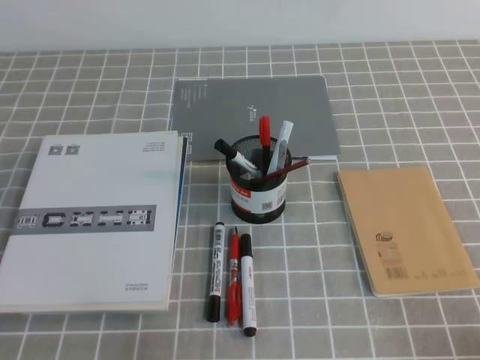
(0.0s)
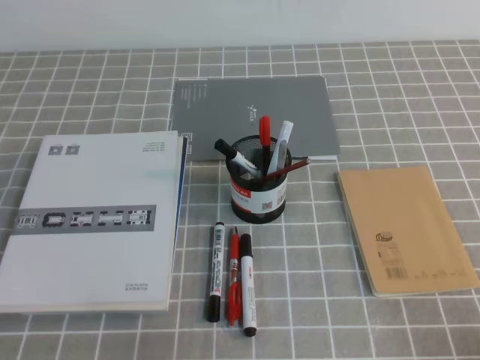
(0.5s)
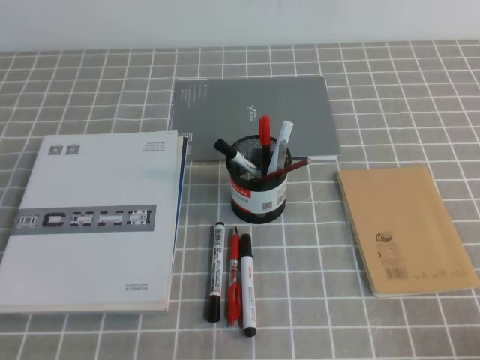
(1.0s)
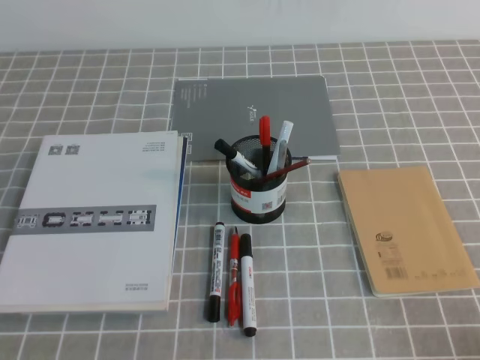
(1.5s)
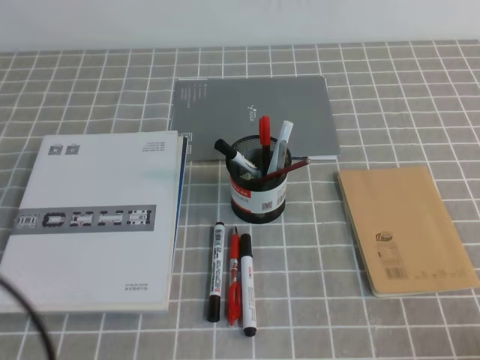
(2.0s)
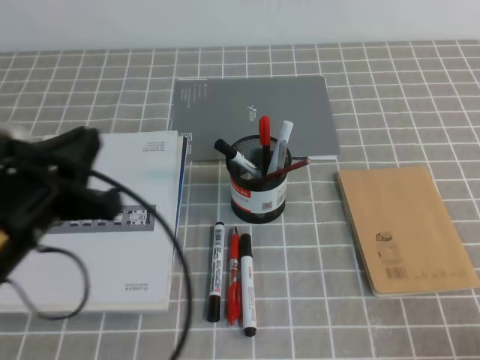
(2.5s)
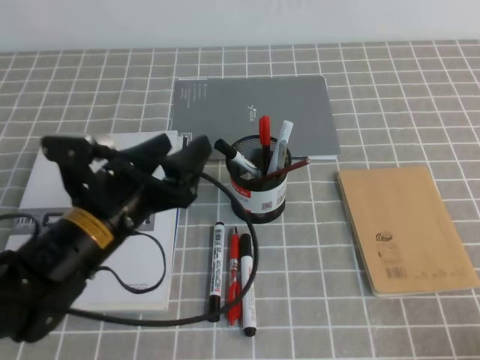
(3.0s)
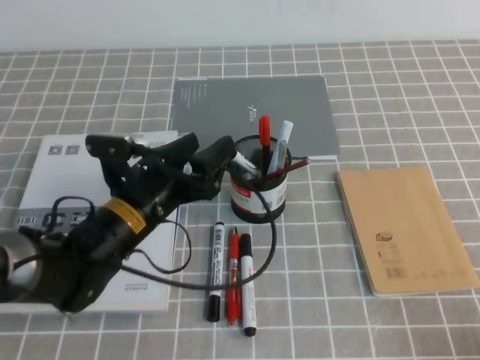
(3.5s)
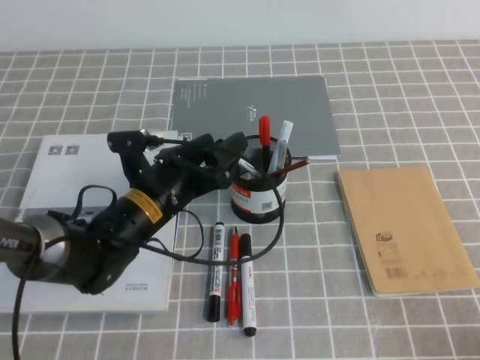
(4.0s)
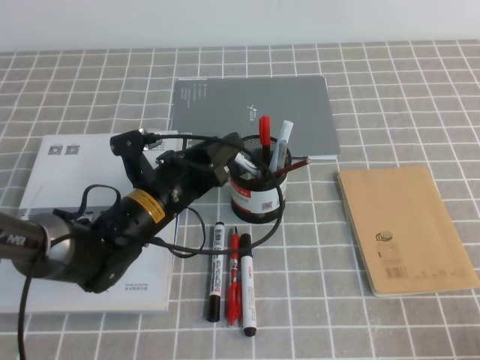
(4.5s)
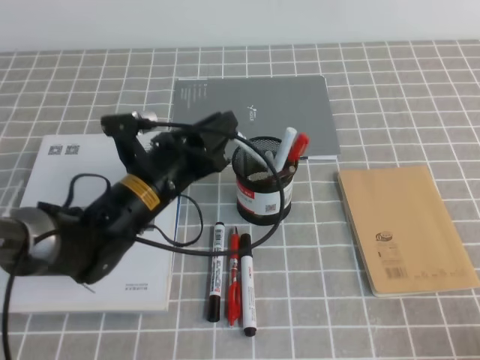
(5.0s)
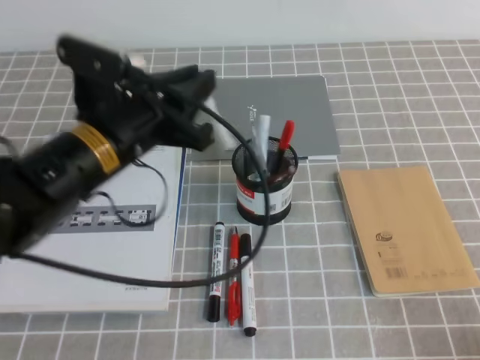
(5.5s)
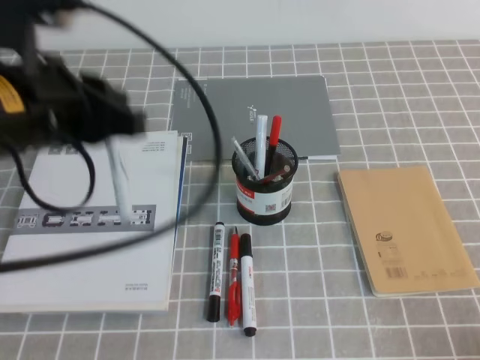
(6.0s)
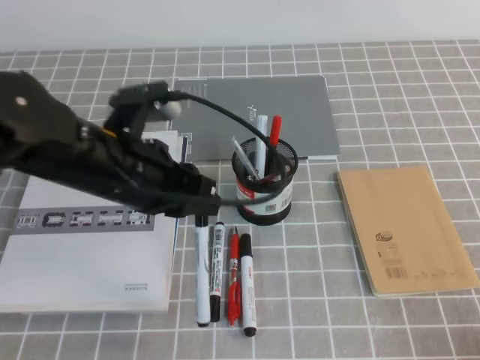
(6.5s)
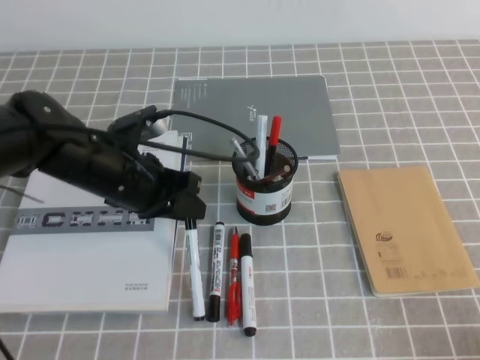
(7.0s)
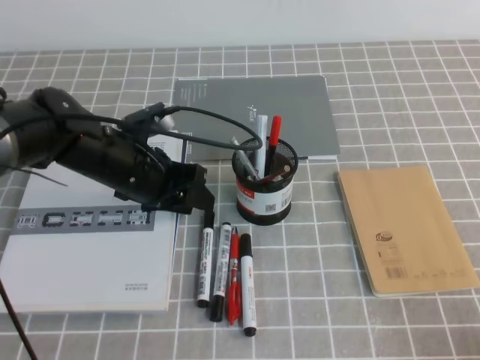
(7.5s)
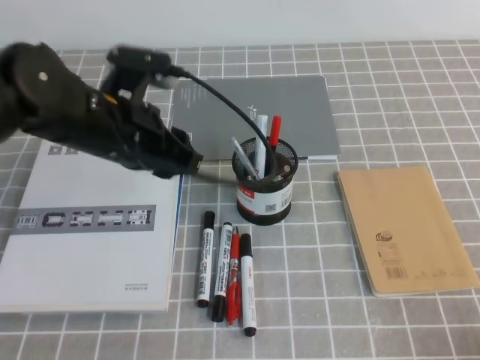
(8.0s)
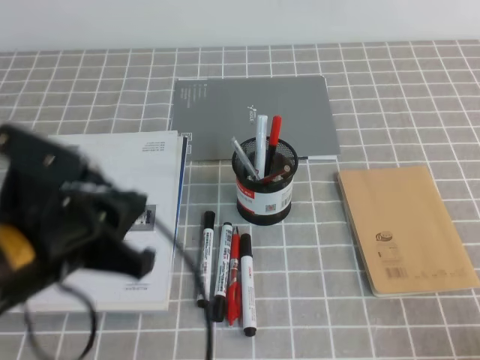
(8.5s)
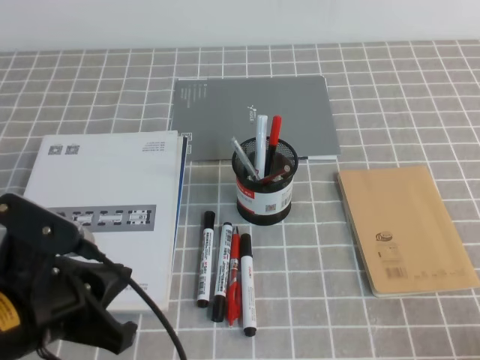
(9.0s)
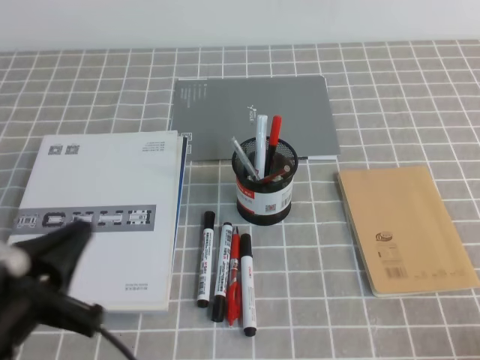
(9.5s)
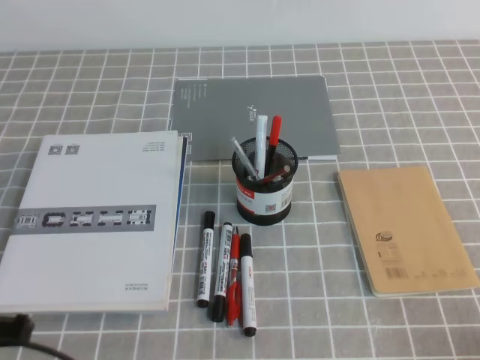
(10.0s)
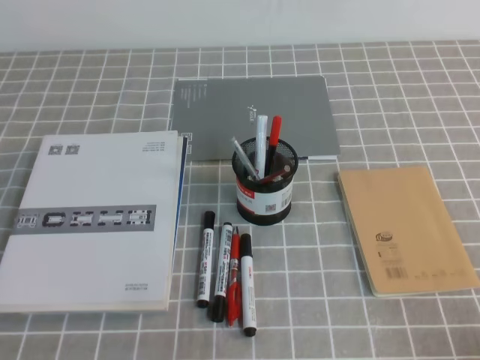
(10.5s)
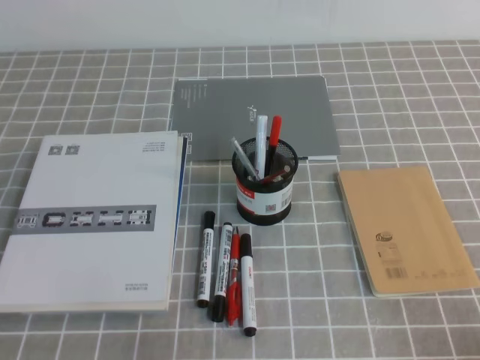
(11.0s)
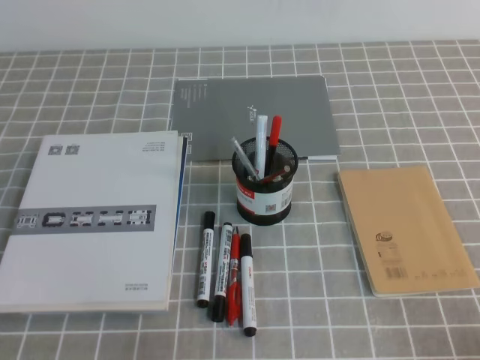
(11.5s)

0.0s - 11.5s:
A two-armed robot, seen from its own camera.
Step, 0.0s - 11.5s: Pick up the pen from the pen holder.
0.0s - 2.0s: The left gripper is displaced upward by about 15 cm.
2.0s - 4.0s: The left gripper is displaced forward, to the right and downward by roughly 30 cm, and opens its fingers.
4.0s - 6.0s: The left gripper goes some 20 cm upward and backward, and closes.
6.0s - 7.5s: The left gripper travels downward and forward by about 20 cm.
7.5s - 9.5s: The left gripper is displaced backward by roughly 20 cm, and closes its fingers.
9.5s - 11.5s: The left gripper moves backward, downward and to the left, approximately 10 cm.

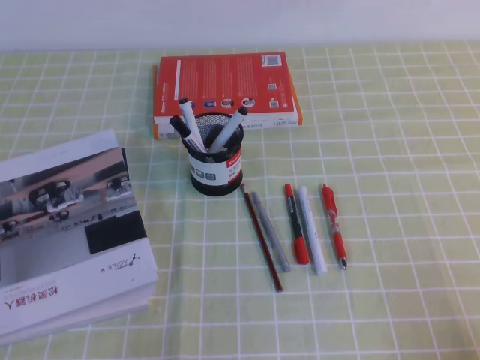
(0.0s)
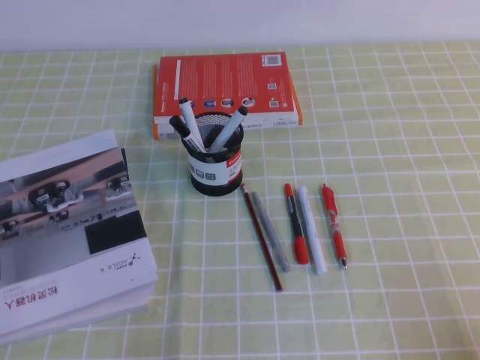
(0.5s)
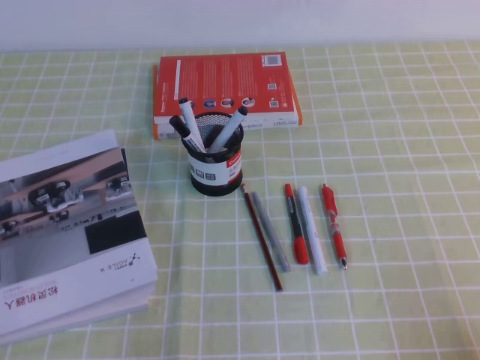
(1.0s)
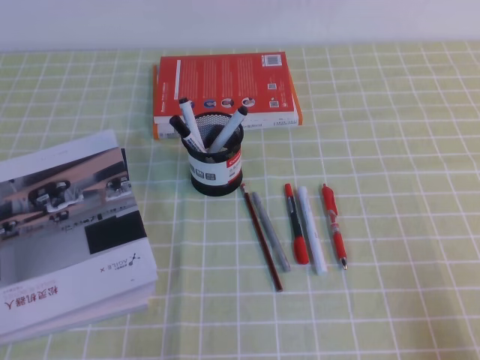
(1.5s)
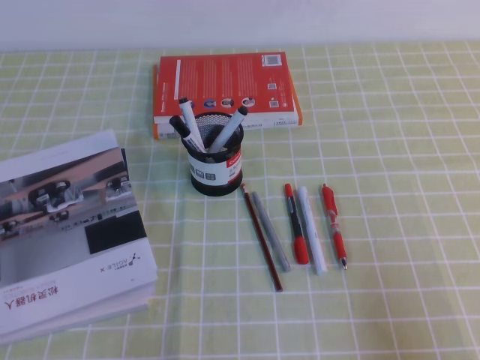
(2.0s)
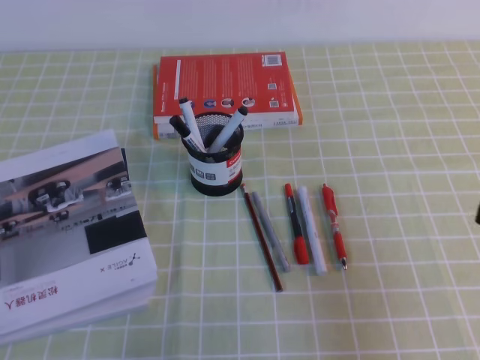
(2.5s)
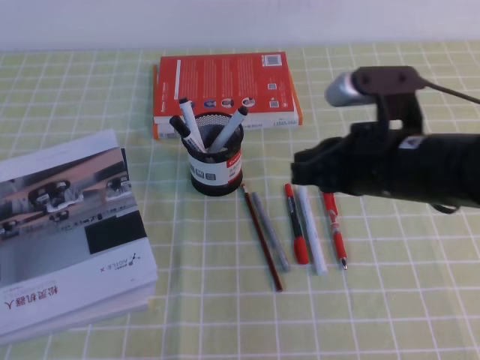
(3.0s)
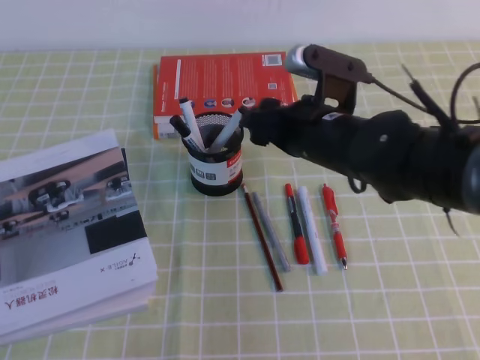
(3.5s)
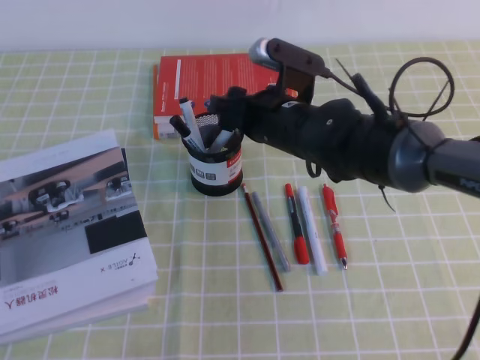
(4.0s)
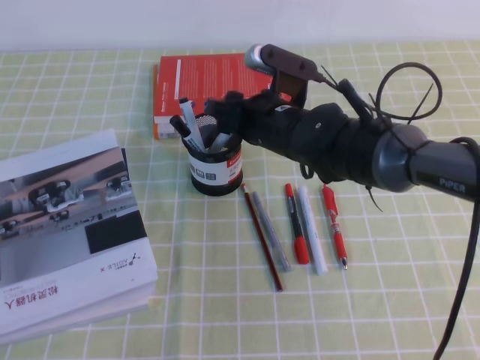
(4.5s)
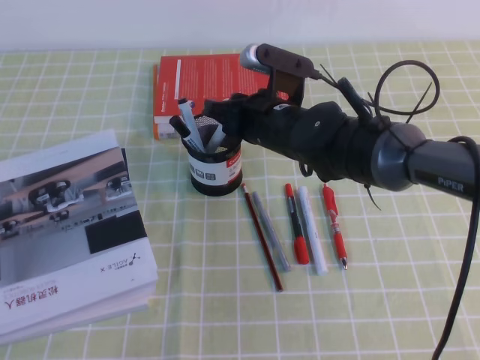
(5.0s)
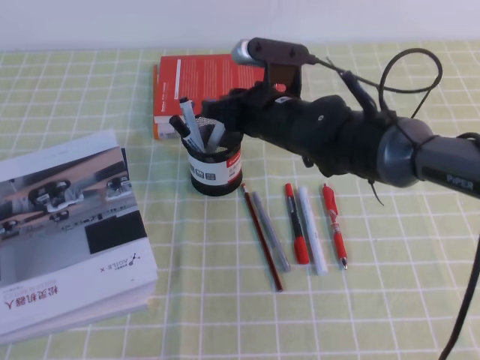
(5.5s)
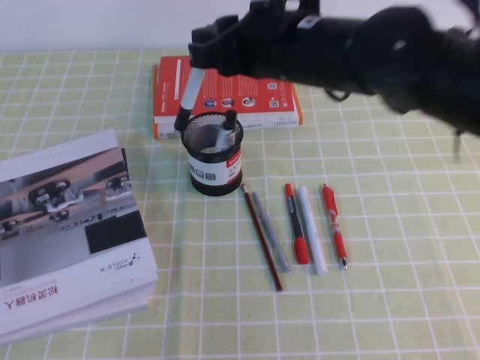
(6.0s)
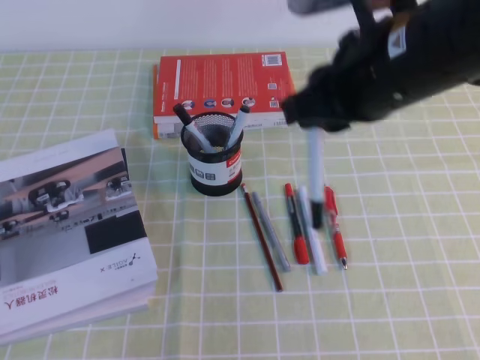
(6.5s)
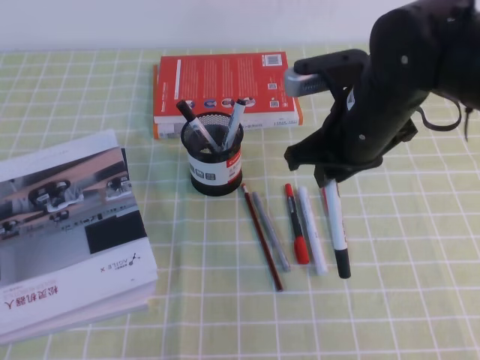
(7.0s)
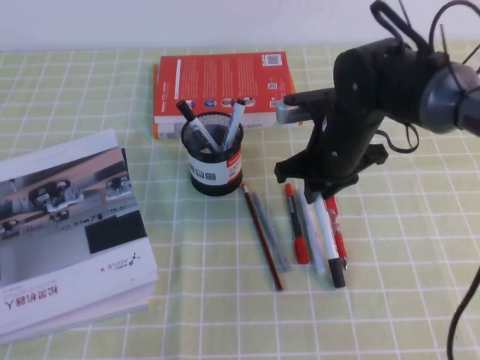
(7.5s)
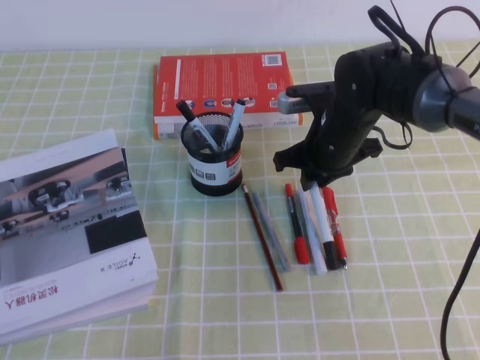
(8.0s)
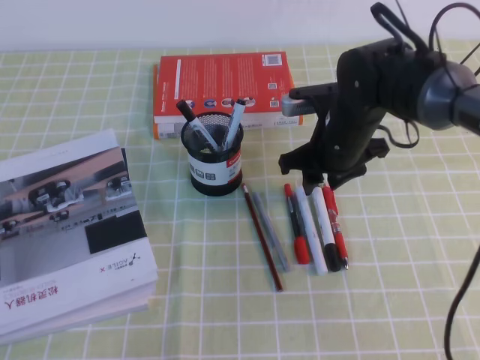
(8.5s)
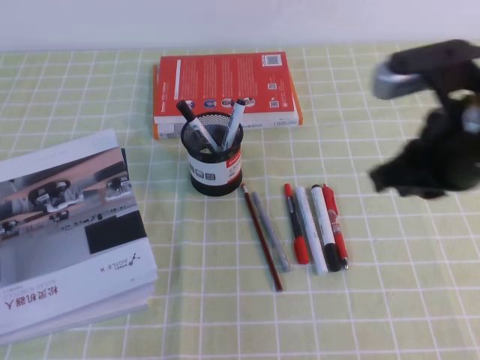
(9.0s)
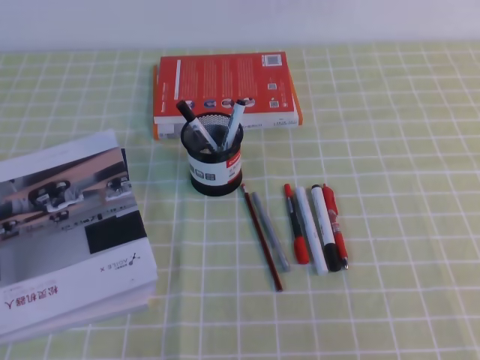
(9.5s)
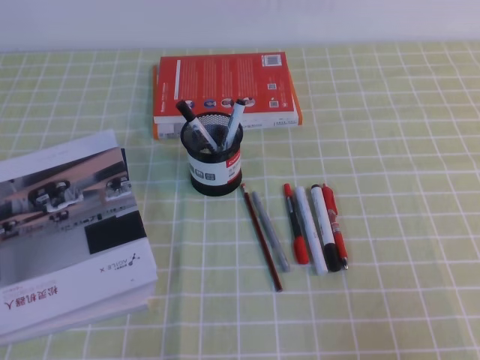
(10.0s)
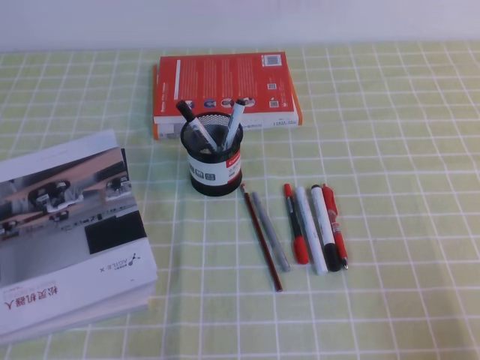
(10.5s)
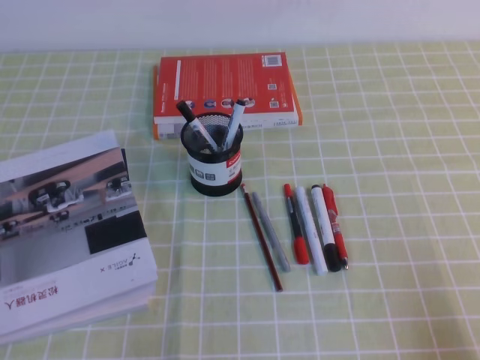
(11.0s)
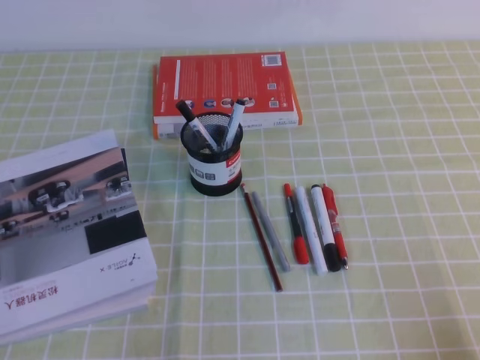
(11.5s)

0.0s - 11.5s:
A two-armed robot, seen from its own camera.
Step, 0.0s - 11.5s: Pick up the pen from the pen holder.
0.0s - 2.0s: The right gripper heads upward, covering approximately 5 cm.
2.0s - 4.0s: The right gripper is displaced forward and to the left by approximately 40 cm, and opens up.
4.0s - 6.0s: The right gripper heads upward, covering roughly 10 cm, and closes up.
6.0s - 7.5s: The right gripper is displaced downward and to the right by roughly 15 cm.
7.5s - 9.5s: The right gripper shifts some 35 cm backward, to the right and upward.
9.5s - 11.5s: The right gripper is displaced downward by some 15 cm.

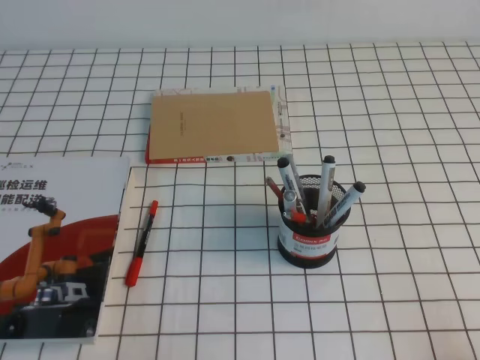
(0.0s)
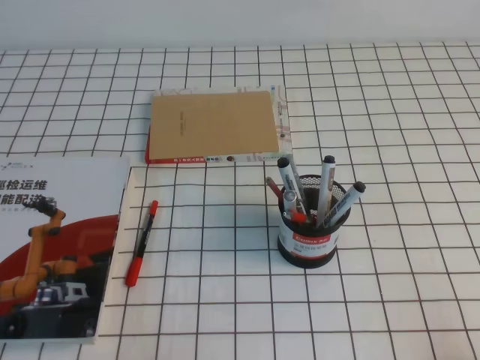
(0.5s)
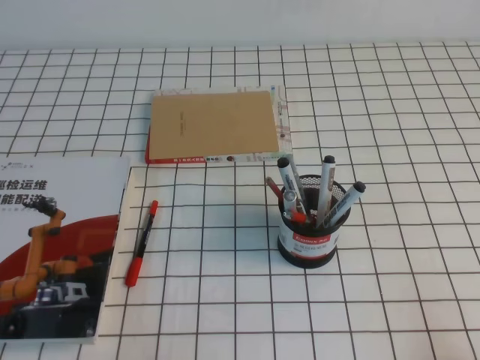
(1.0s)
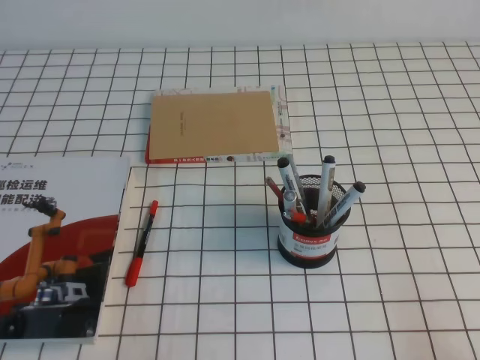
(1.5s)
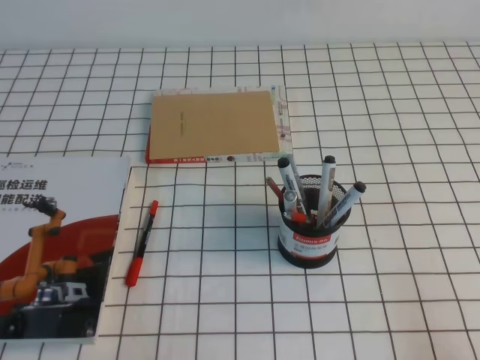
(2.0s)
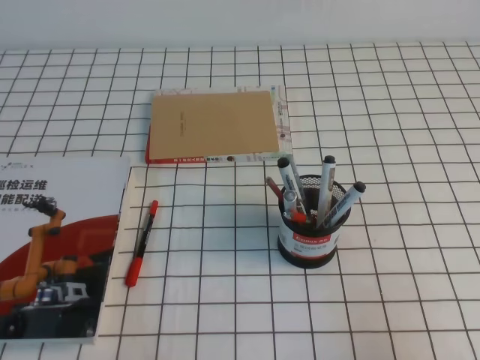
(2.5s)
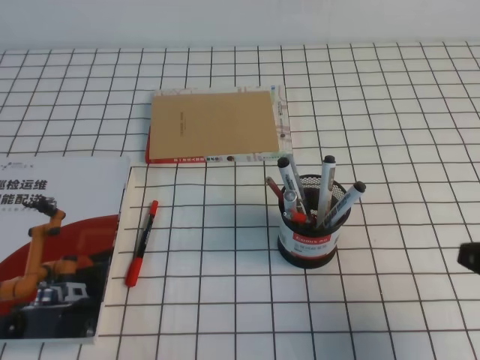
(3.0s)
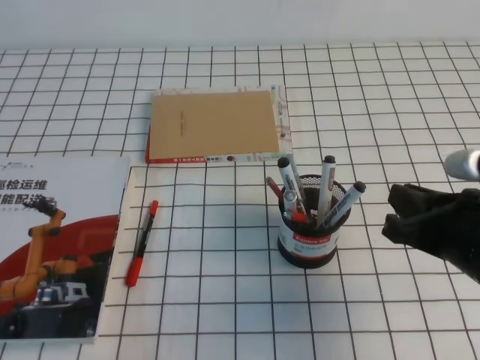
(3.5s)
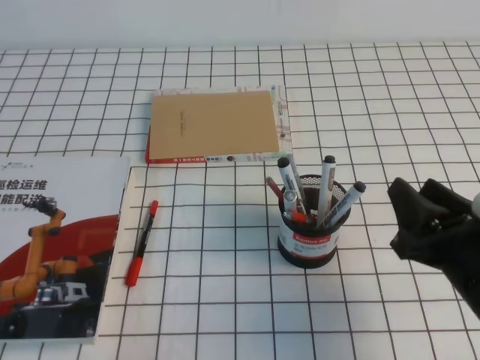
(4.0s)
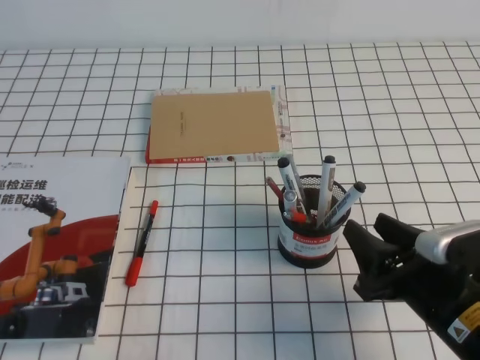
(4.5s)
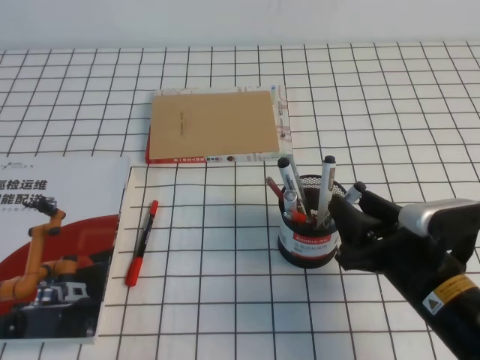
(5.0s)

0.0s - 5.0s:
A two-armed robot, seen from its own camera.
0.0s - 2.5s: The right gripper heads upward, covering roughly 5 cm.
2.5s - 5.0s: The right gripper is displaced to the left, forward and downward by some 20 cm, and opens.
